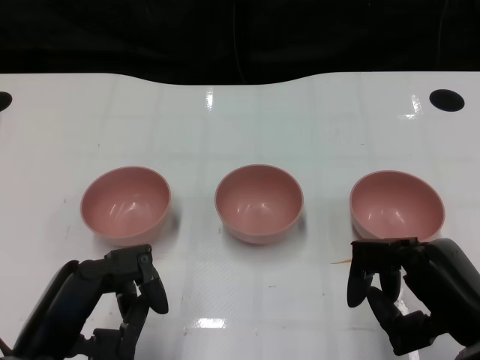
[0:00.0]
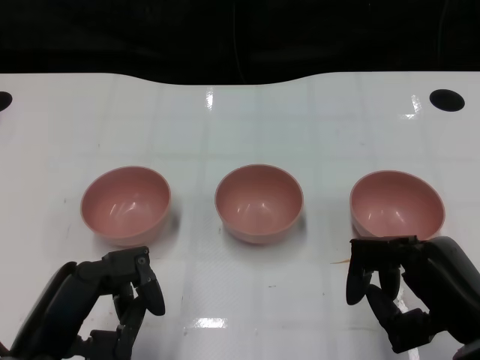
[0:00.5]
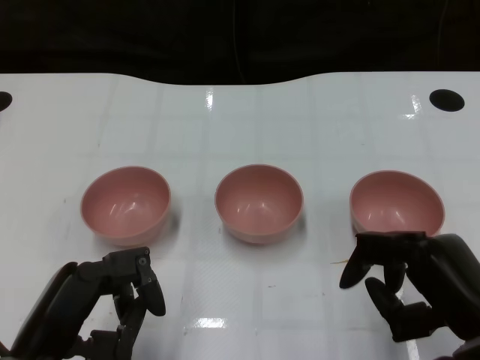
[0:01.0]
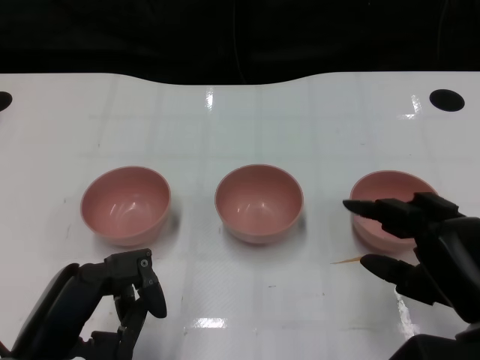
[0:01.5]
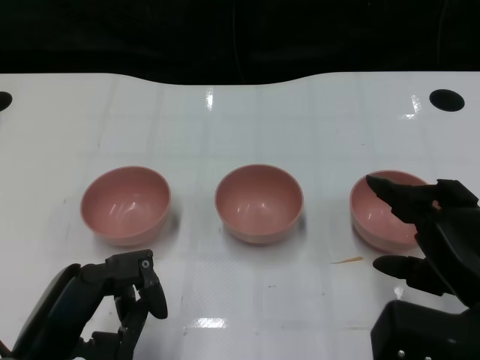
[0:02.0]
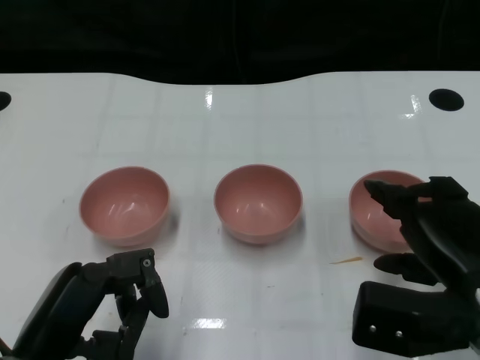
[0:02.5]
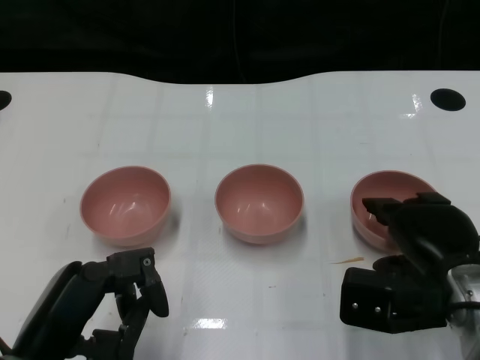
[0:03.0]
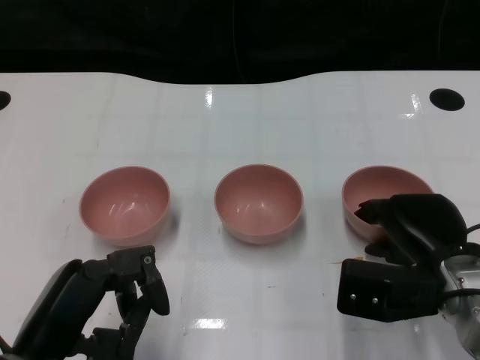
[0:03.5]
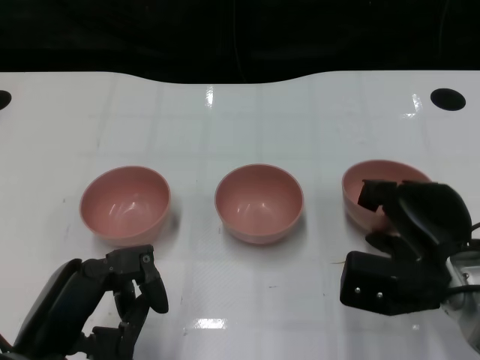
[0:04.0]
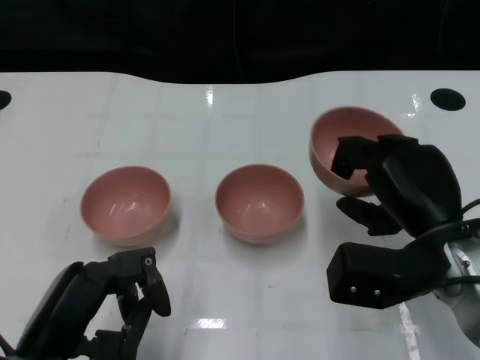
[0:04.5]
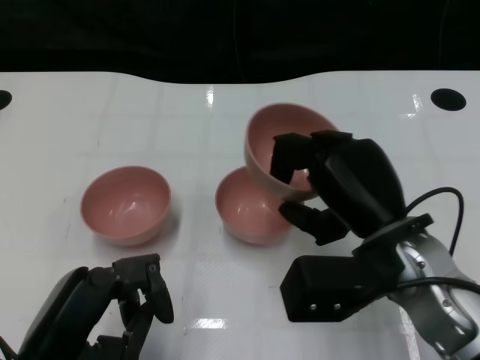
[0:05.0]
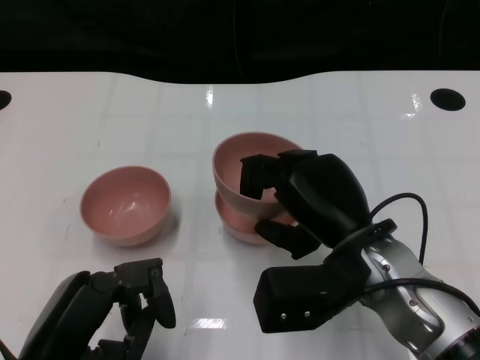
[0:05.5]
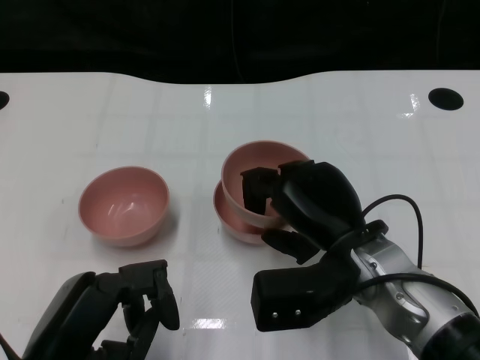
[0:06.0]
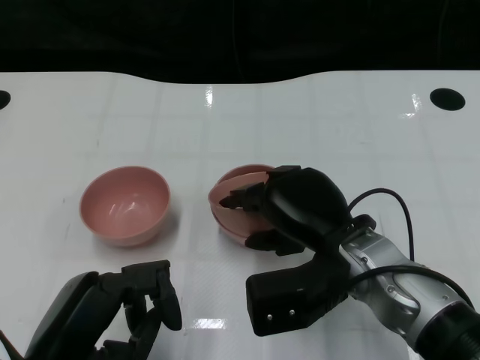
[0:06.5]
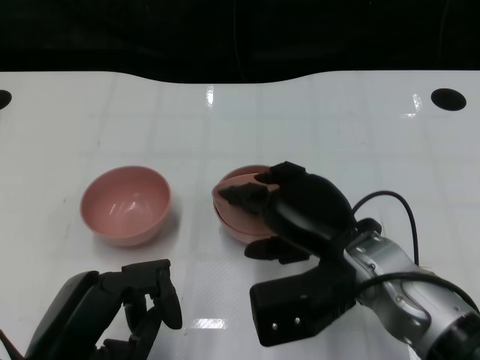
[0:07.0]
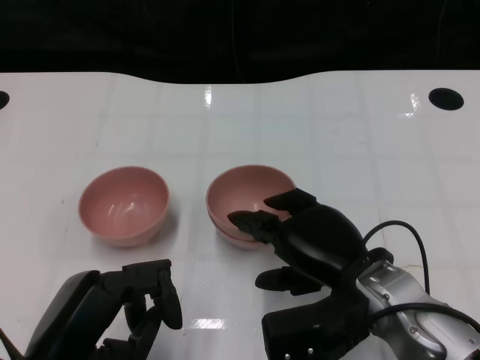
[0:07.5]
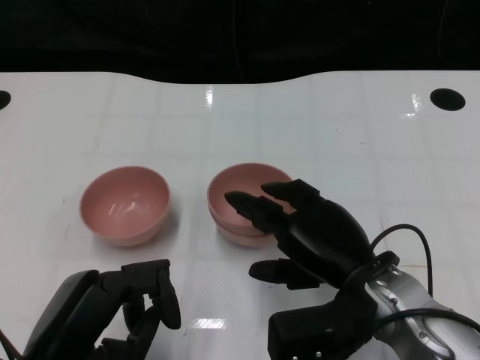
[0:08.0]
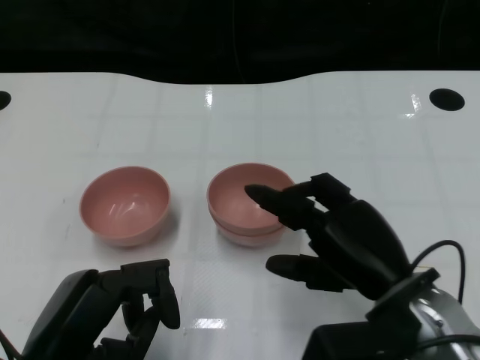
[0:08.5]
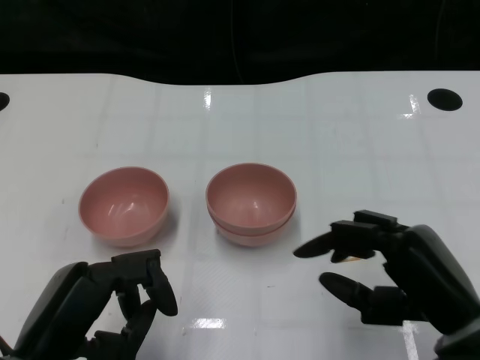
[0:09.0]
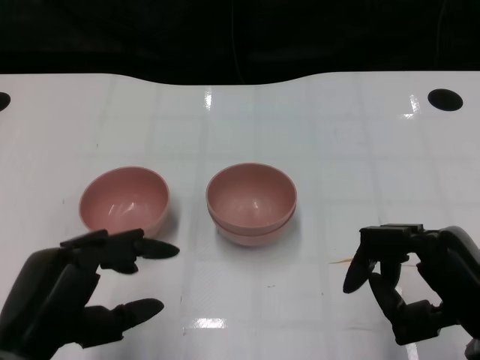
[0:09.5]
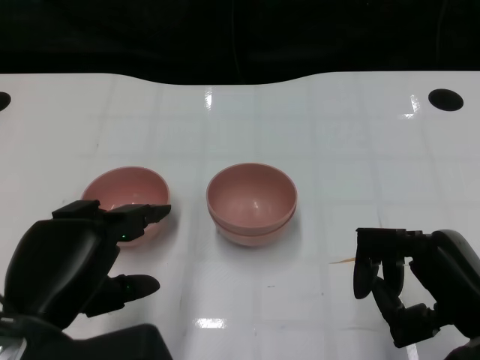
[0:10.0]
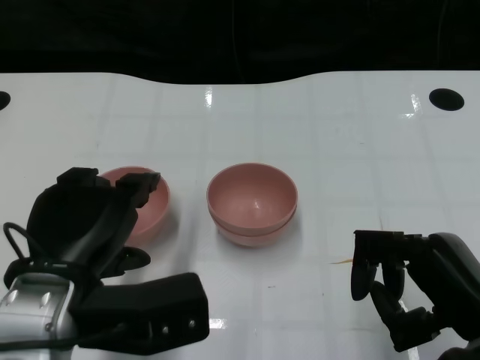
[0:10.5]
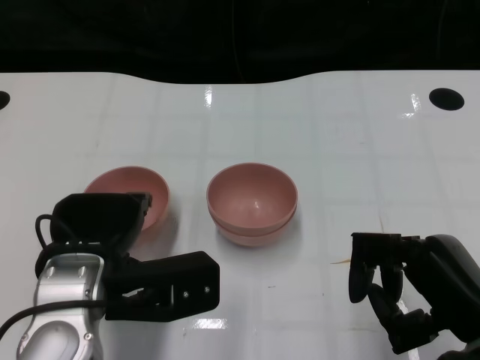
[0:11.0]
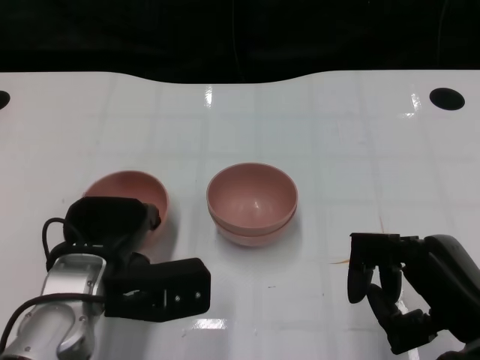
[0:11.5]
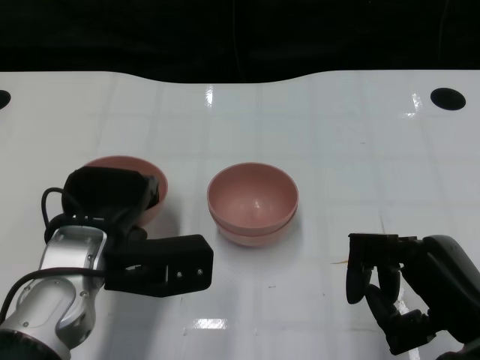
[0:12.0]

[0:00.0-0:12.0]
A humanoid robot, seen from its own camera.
Task of the whole recording: Pick up the bowl on one side of the table and place it on top of the middle bowl, then pick up the bowl on the other side of the table and place it on top of the middle bowls.
Step, 0:01.0 to 0:03.5: Grasp the bowl on the right with the right gripper.
Step, 0:04.5 to 0:08.5: Place the bowl on the right onto the bowl in the middle with right gripper.
Step, 0:09.0 to 0:11.5: Grasp the bowl on the left with the left gripper.
0:02.0 to 0:04.0: The right hand is displaced forward by about 5 cm.
0:04.0 to 0:06.0: The right hand goes some 10 cm to the left.
0:06.0 to 0:08.0: The hands stay close to where they were, moving slightly.
0:08.0 to 0:10.0: The right hand moves to the right and backward, roughly 10 cm.
0:10.0 to 0:12.0: The left hand heads forward, covering approximately 10 cm.

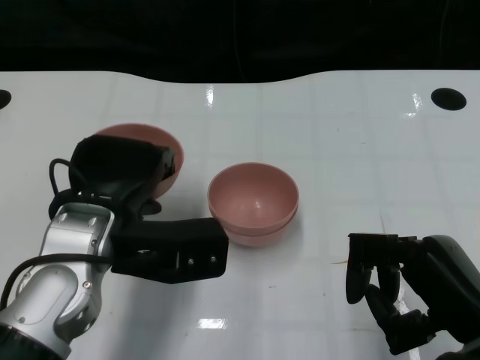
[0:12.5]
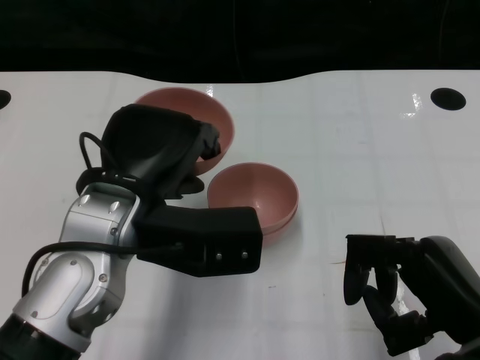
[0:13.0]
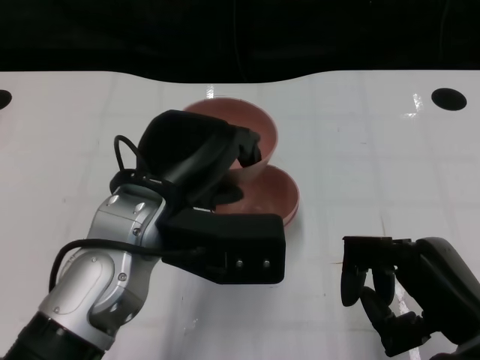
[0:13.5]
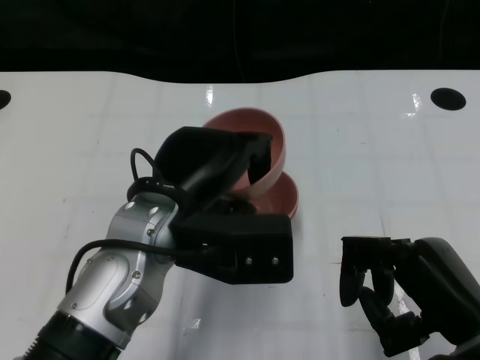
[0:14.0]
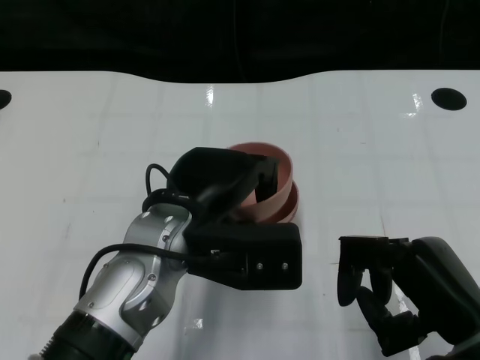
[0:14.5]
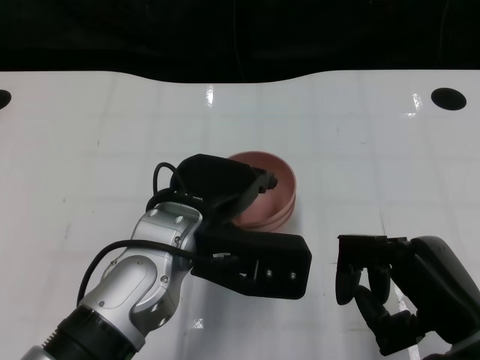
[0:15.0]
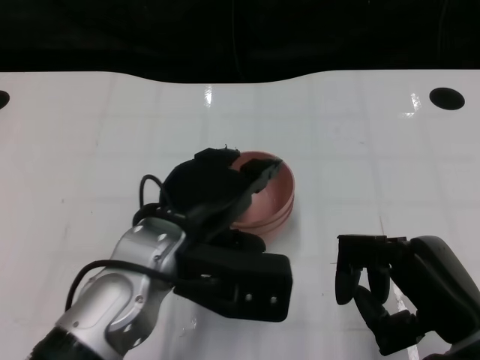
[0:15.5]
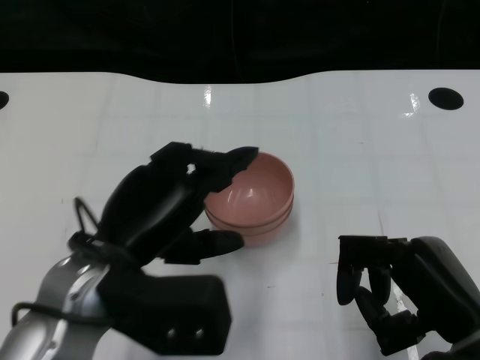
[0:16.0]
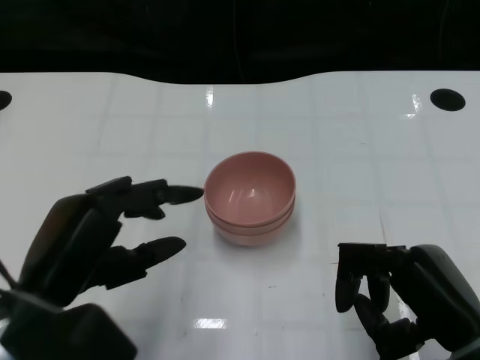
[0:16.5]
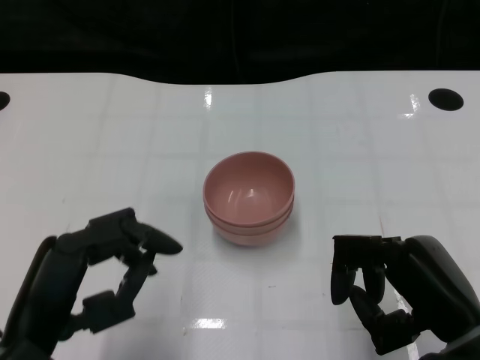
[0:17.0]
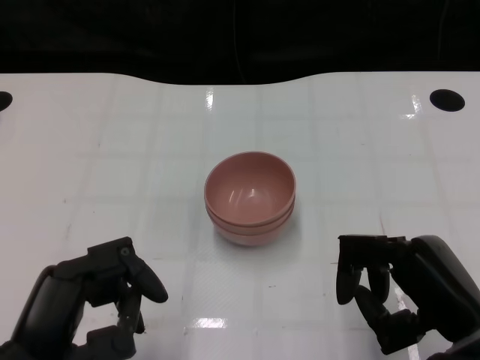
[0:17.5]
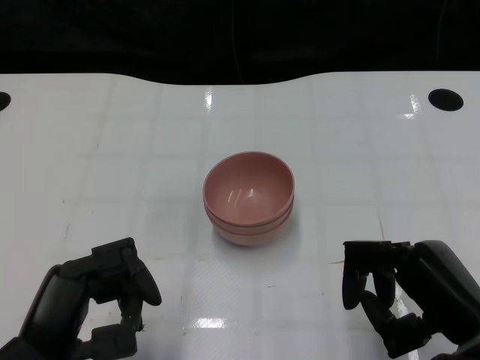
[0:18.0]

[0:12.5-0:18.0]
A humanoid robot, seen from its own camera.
Task of the whole recording: Pick up the bowl on one side of the table and place it on top of the middle bowl, then pick up the bowl on the other side of the table and place it on top of the middle bowls.
Step, 0:12.5 to 0:16.0: Place the bowl on the left onto the bowl in the middle with left gripper.
0:12.5 to 0:14.5: The left hand goes roughly 5 cm to the right.
0:14.5 to 0:16.0: The left hand shifts approximately 5 cm to the left.
0:16.0 to 0:18.0: The left hand goes about 10 cm backward, to the left and downward.
